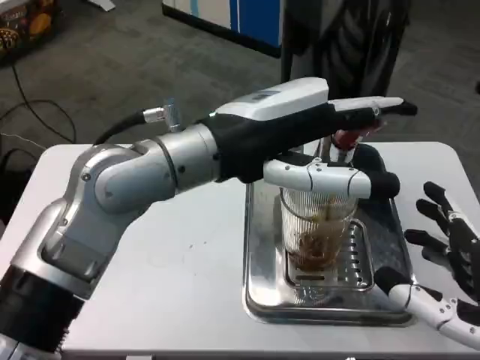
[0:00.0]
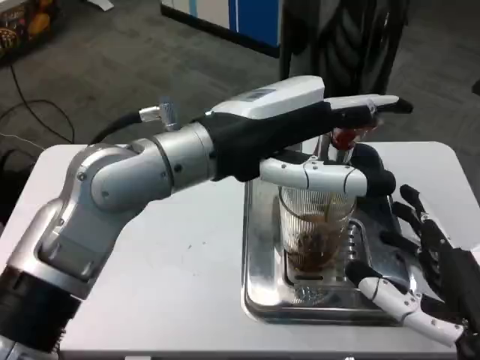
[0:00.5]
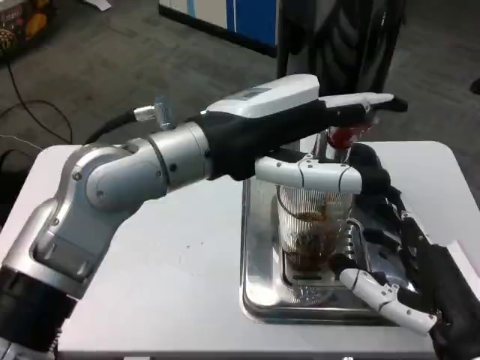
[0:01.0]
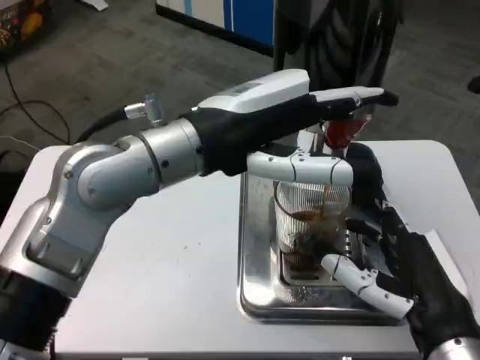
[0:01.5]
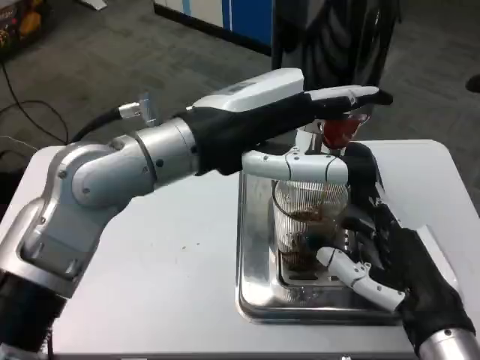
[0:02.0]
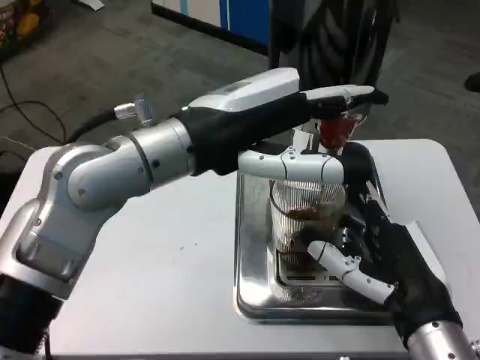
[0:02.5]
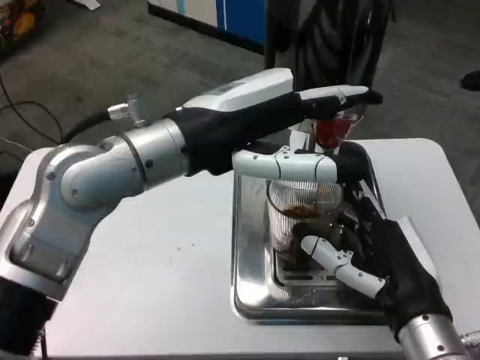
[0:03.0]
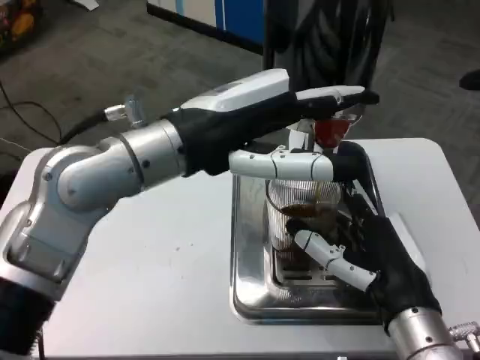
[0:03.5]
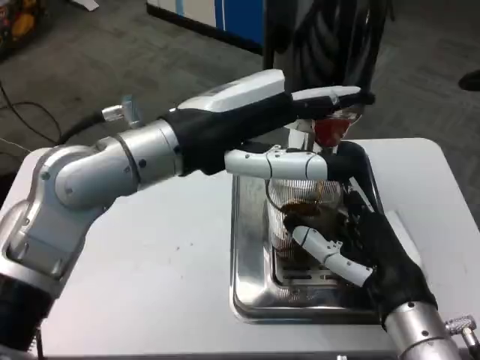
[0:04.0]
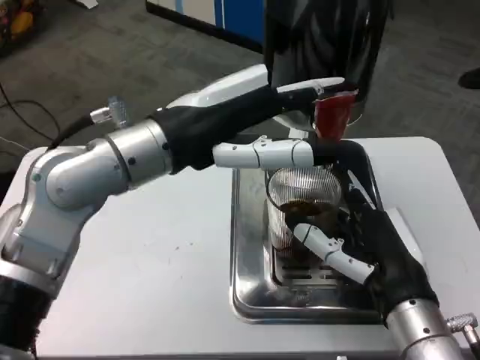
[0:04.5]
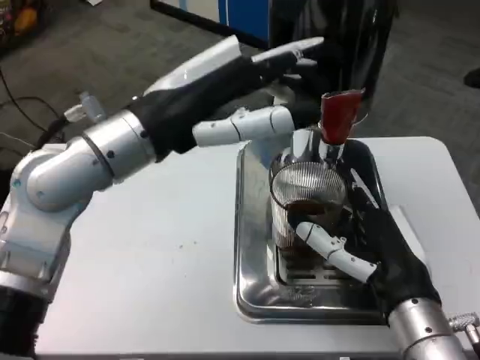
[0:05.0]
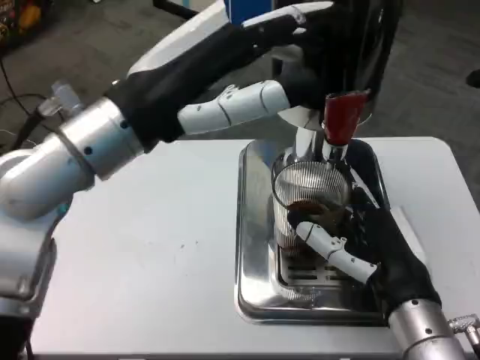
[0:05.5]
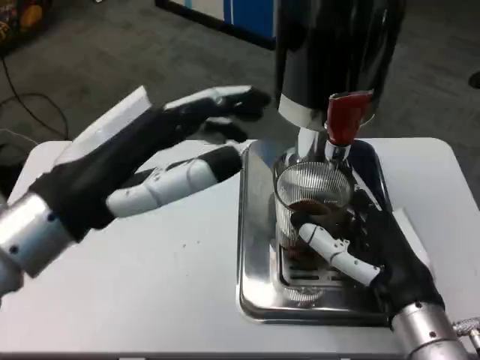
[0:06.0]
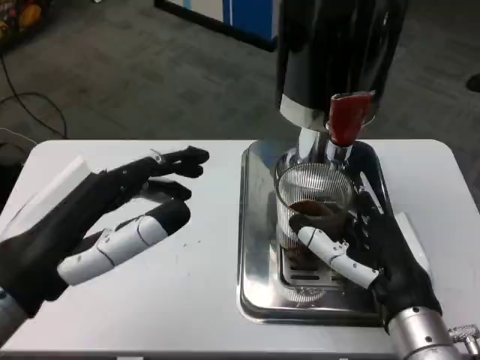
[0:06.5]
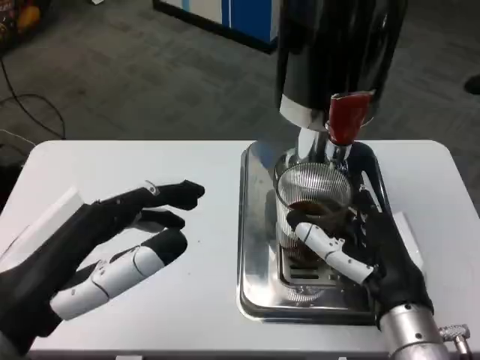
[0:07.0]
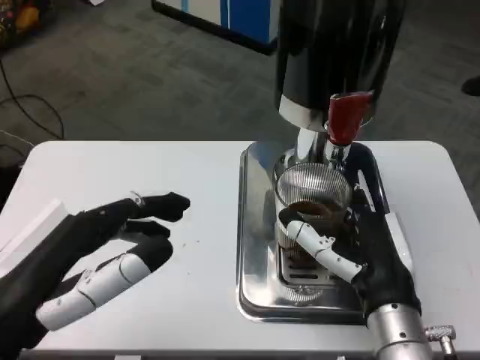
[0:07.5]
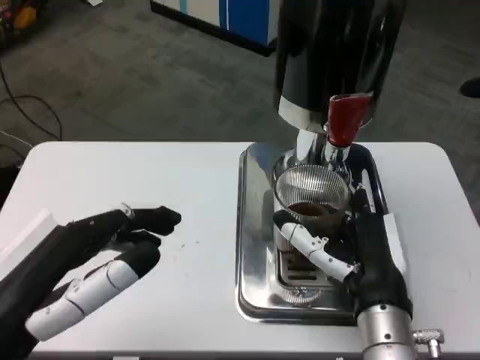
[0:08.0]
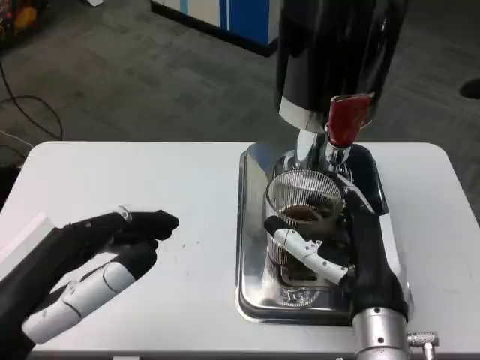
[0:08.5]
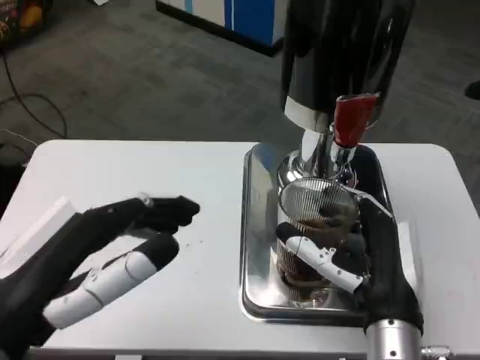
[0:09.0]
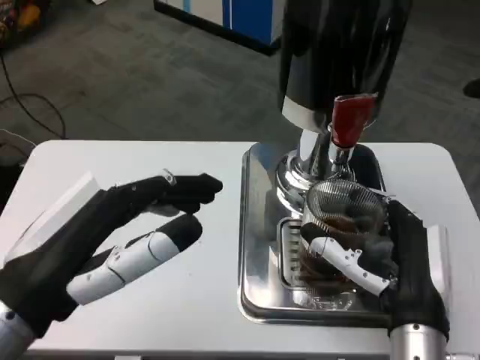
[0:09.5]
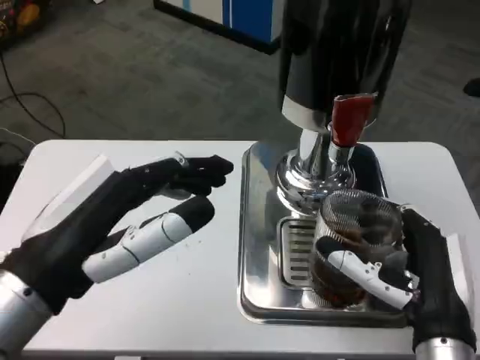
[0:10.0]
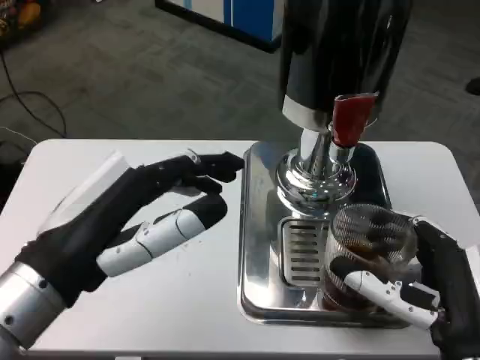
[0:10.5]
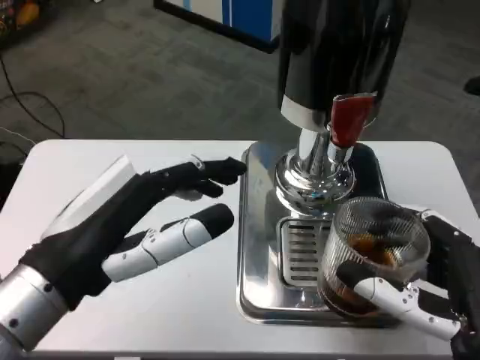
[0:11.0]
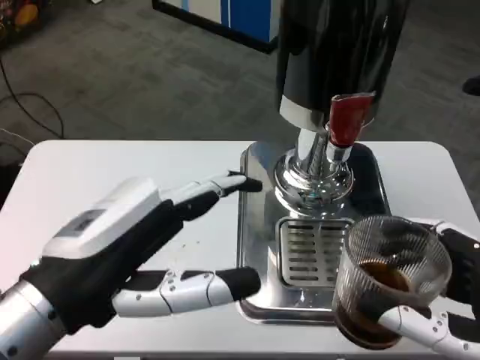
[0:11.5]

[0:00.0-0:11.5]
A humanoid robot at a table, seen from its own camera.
Task of the whole recording: Grasp the cup under the faucet to collect the drink, then remove the cup.
0:00.0 to 0:02.0: The right hand heads forward and to the left, covering about 10 cm.
0:04.0 to 0:06.0: The left hand travels backward and to the left by roughly 10 cm.
0:06.0 to 0:07.5: The left hand travels backward by about 5 cm.
0:09.5 to 0:11.5: The right hand heads backward and to the right, covering approximately 15 cm.

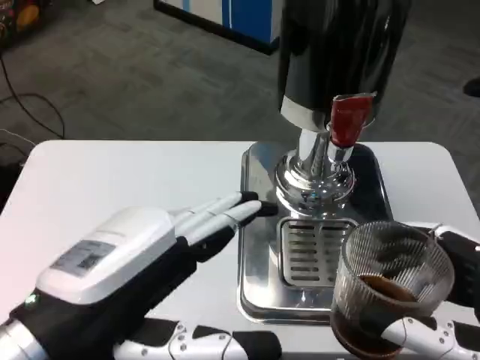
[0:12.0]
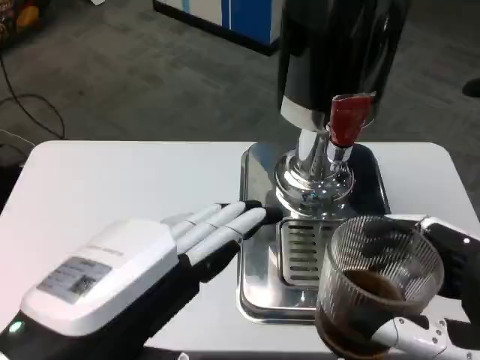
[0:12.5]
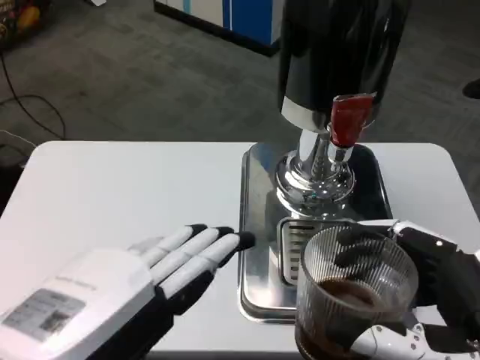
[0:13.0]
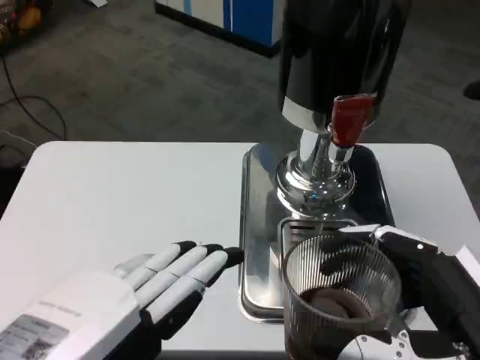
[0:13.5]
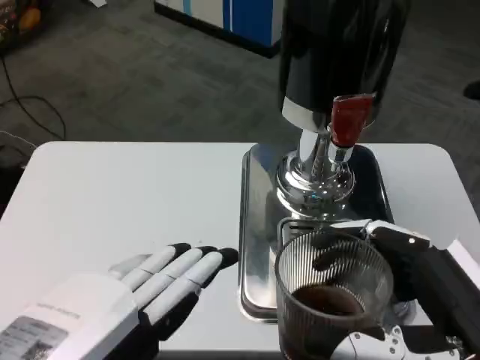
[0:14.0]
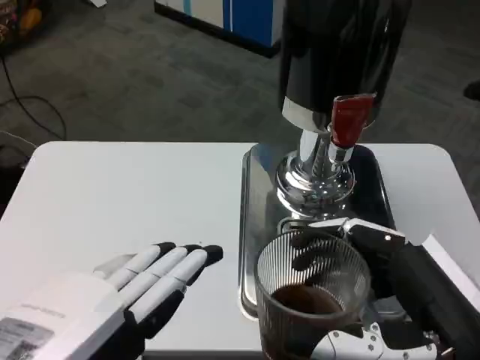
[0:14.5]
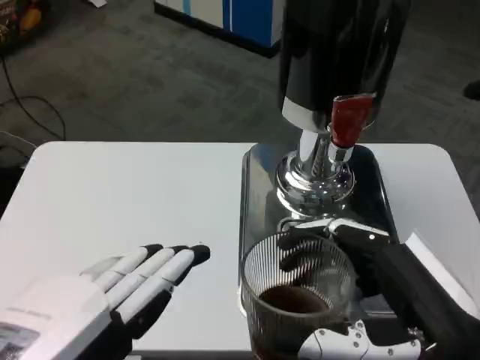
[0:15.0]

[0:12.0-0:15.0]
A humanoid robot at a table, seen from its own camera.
Task of the whole recording: Grasp the cup under the faucet to collect the drink, then remove the cup.
0:12.0 to 0:13.5: The left hand moves backward, approximately 5 cm.
0:13.5 to 0:15.0: There are only small adjustments of the hands.

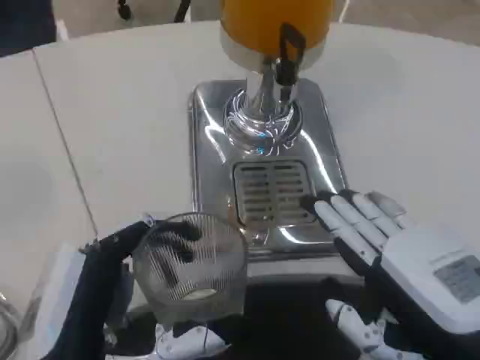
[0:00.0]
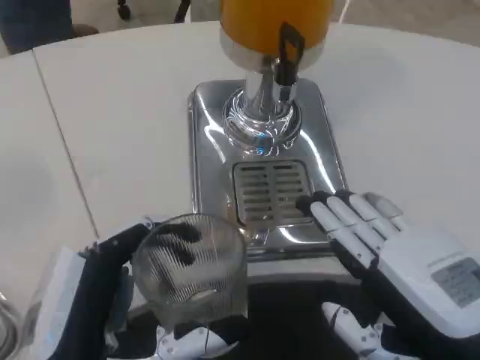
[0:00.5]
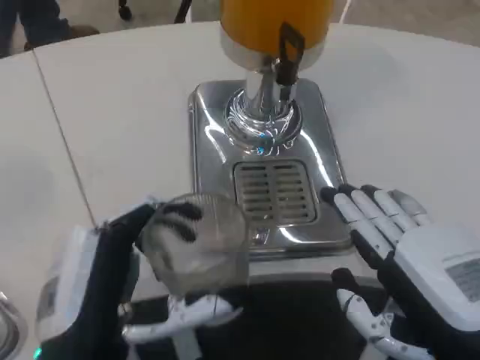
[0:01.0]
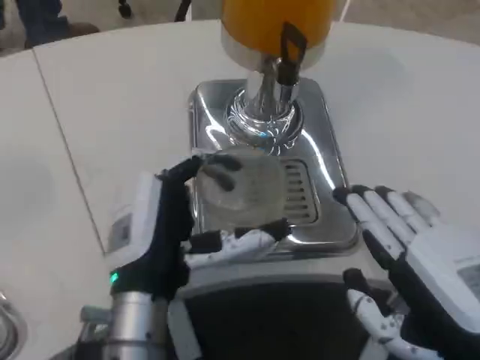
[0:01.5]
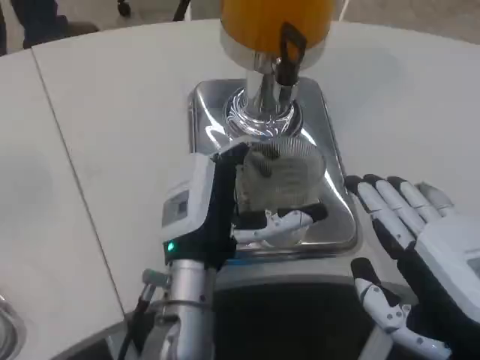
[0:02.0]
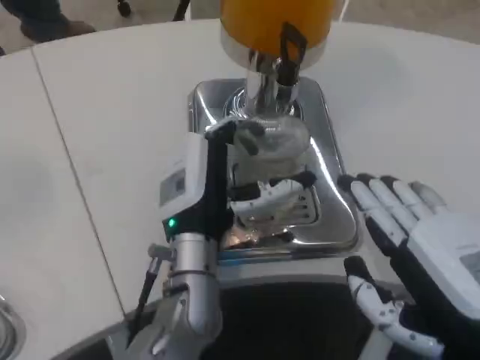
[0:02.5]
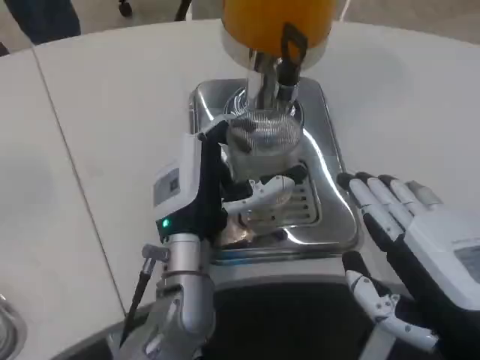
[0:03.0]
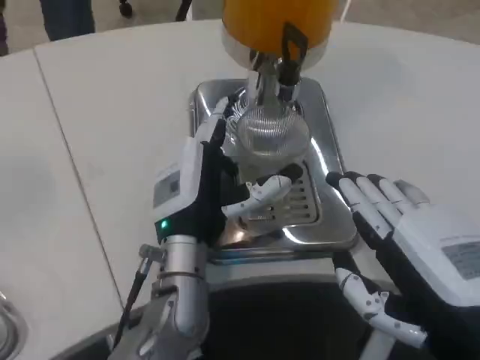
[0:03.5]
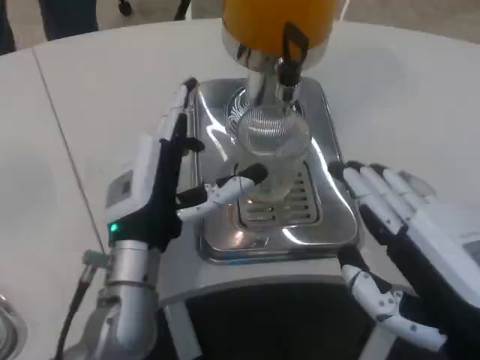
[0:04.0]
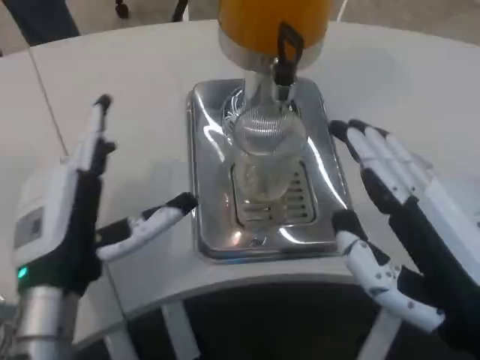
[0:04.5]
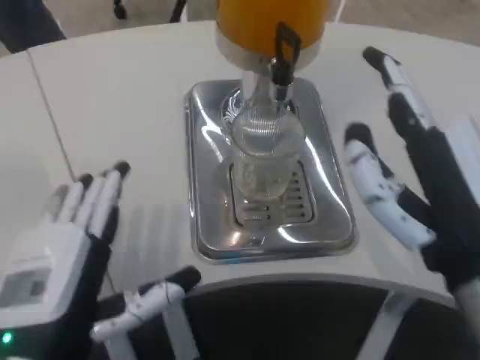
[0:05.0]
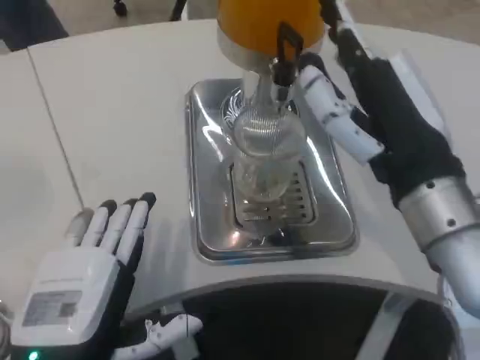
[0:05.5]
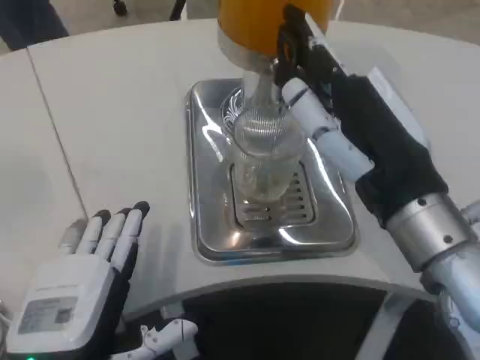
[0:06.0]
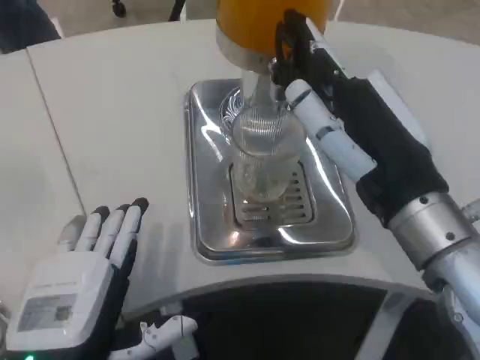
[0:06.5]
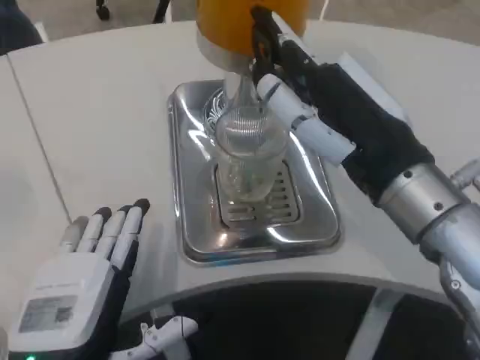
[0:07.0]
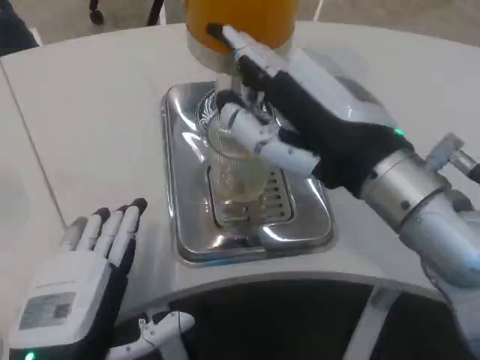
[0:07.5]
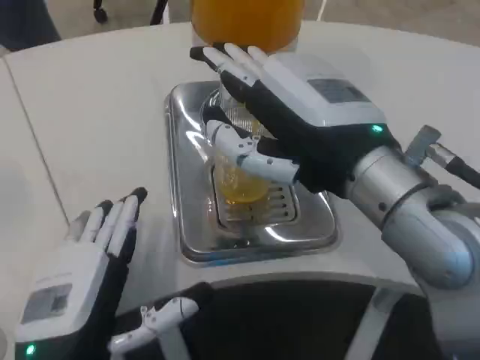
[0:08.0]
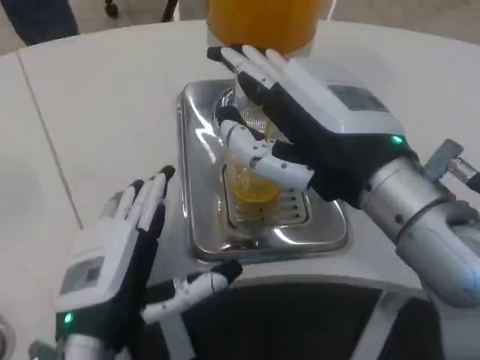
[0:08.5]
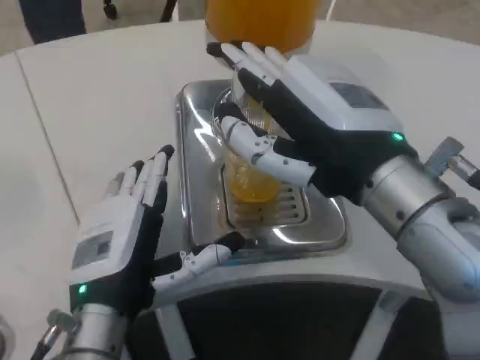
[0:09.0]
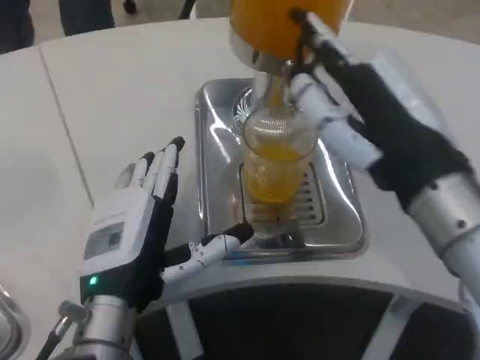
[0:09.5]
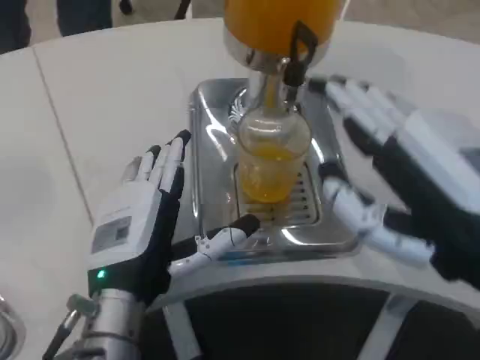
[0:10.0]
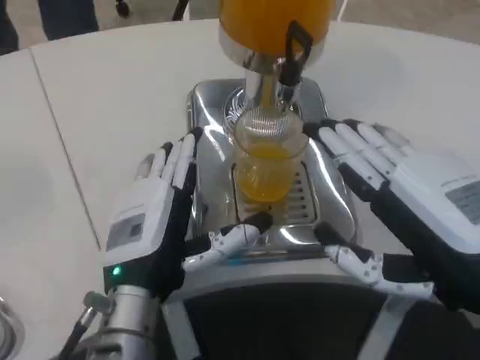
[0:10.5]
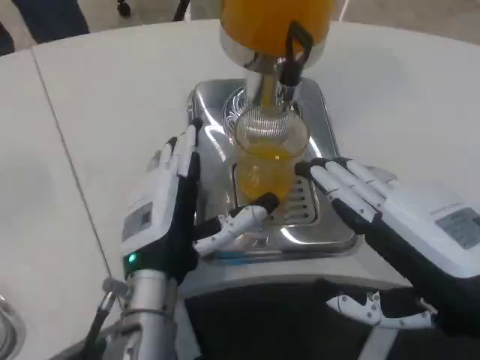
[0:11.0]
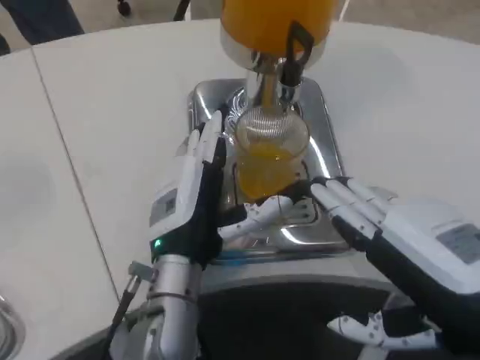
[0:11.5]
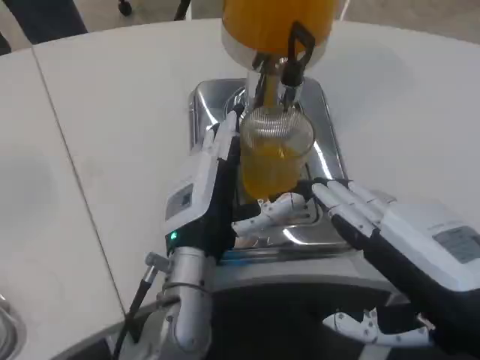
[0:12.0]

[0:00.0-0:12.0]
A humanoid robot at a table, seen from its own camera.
Task of the whole recording: Grasp the cup under the faucet to collect the drink, then remove the cup.
0:00.0 to 0:02.0: The left hand goes about 20 cm forward and to the right.
0:02.0 to 0:04.0: The left hand shifts roughly 5 cm to the left.
0:04.0 to 0:06.0: The right hand travels forward and to the left by about 10 cm. Meanwhile the left hand travels backward by roughly 15 cm.
0:06.0 to 0:08.0: The right hand shifts by about 5 cm.
0:08.0 to 0:10.0: The left hand moves forward, about 5 cm, while the right hand shifts about 10 cm to the right and backward.
0:10.0 to 0:12.0: The left hand goes approximately 10 cm to the right and forward.
